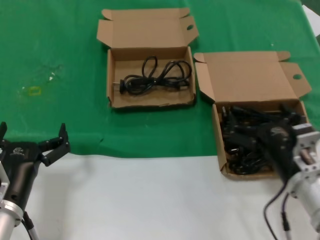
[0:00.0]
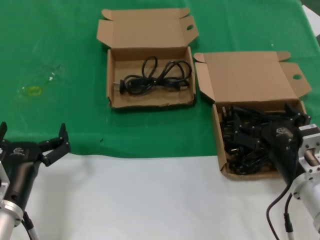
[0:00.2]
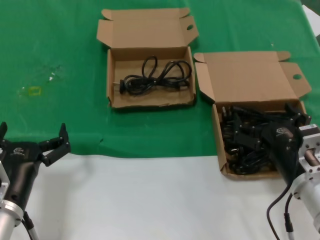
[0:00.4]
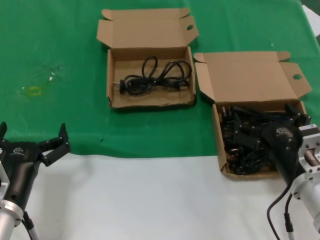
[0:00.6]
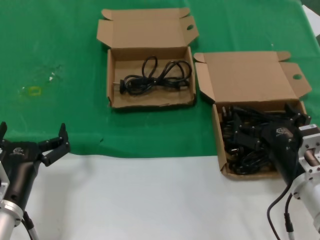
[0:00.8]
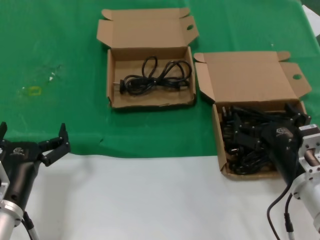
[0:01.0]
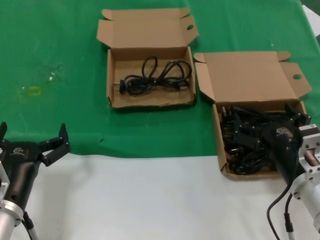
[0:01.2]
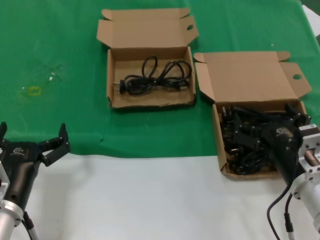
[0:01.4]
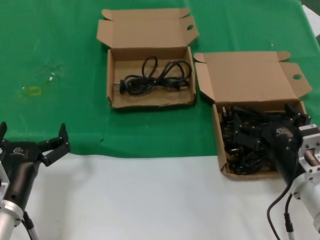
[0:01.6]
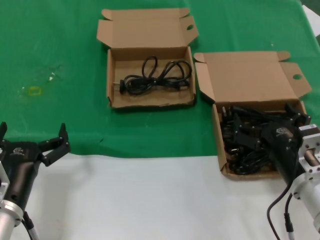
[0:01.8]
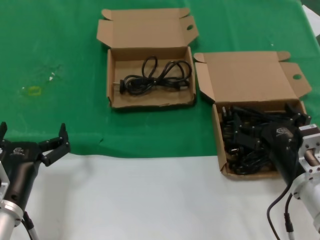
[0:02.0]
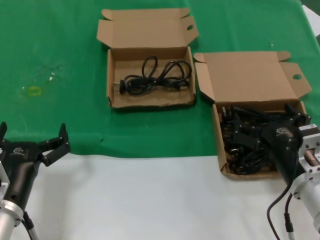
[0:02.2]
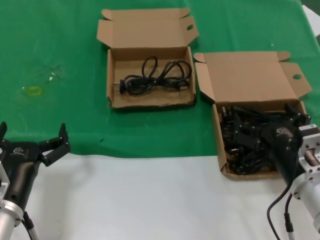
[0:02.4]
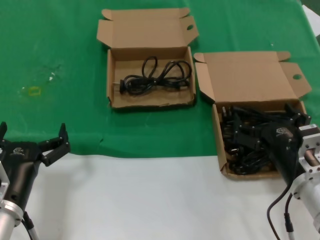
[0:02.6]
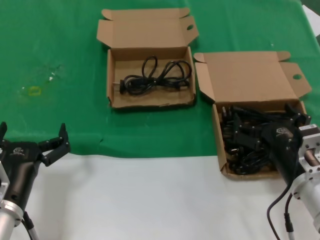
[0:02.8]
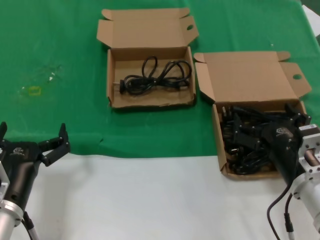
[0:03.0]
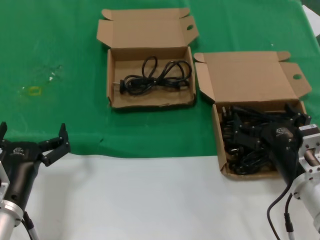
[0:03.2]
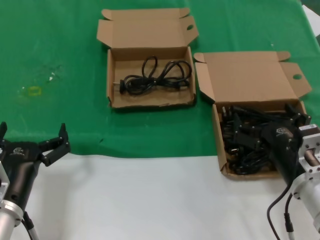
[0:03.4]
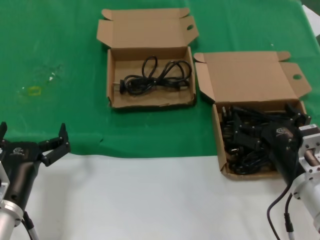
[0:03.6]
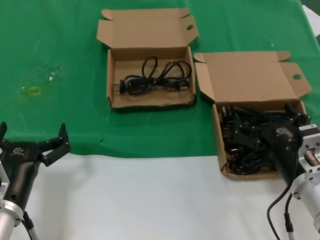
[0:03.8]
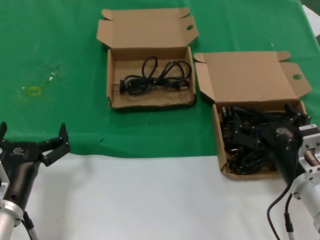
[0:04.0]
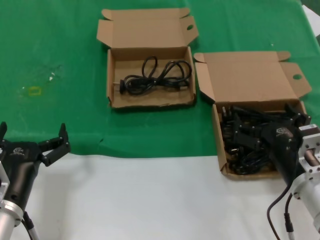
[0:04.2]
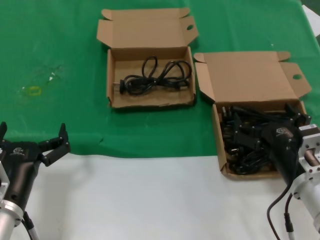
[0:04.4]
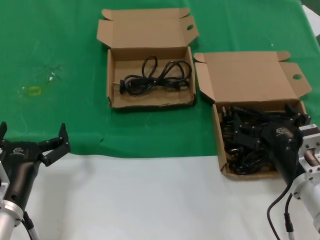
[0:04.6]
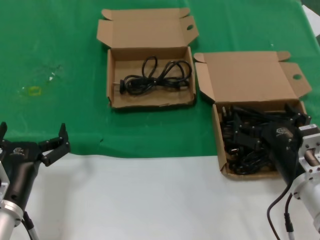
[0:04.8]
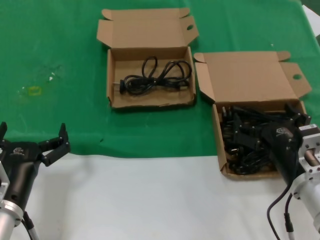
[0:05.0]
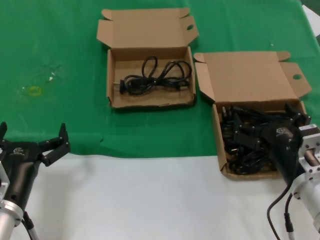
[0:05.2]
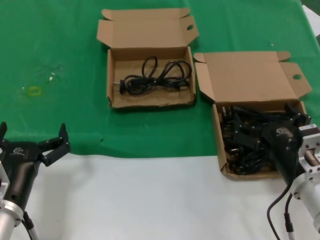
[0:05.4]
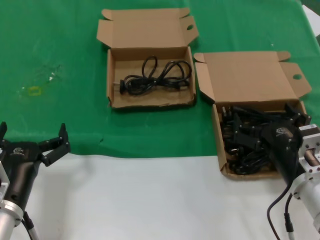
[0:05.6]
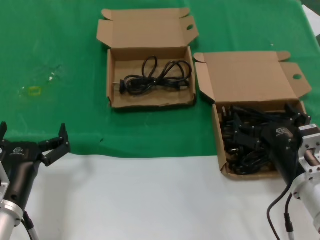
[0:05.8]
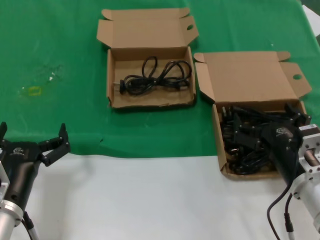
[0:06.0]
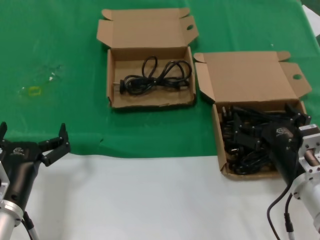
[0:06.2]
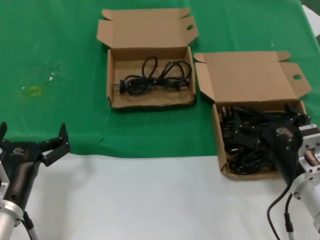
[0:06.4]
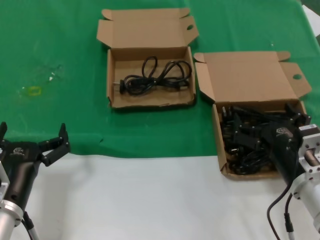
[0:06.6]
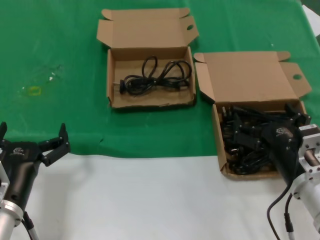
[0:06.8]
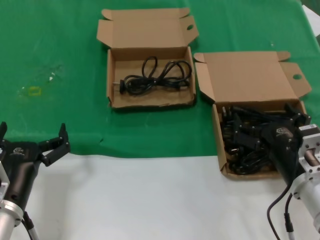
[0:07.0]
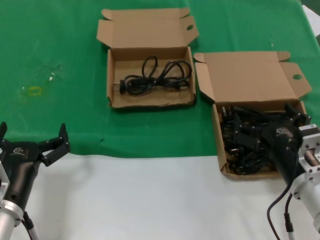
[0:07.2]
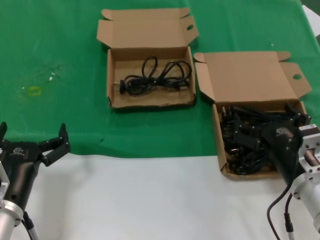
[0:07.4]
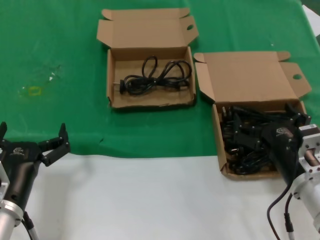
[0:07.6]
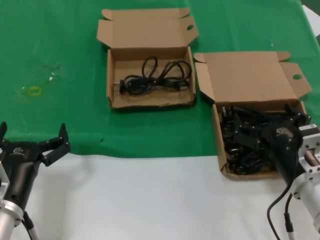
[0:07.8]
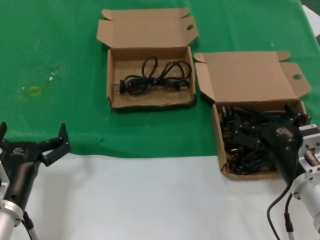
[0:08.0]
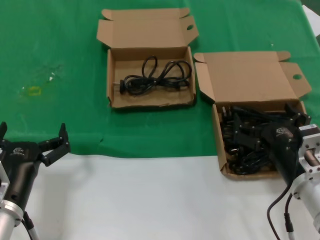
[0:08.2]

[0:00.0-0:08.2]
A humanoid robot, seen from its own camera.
Task of the whole recording: take the parts from the box containing them and put them into an empty box.
0:00.0 to 0:01.6: The hands make only small movements.
0:01.6 to 0:08.2: The two hands keep their place.
